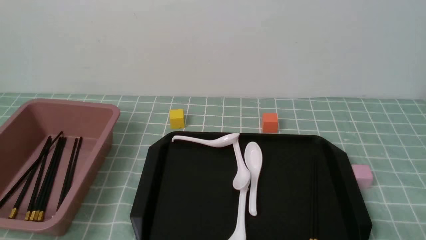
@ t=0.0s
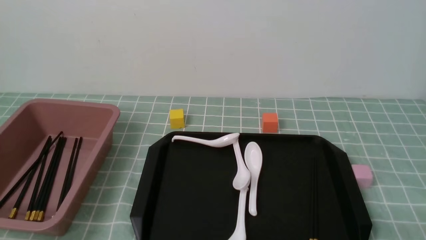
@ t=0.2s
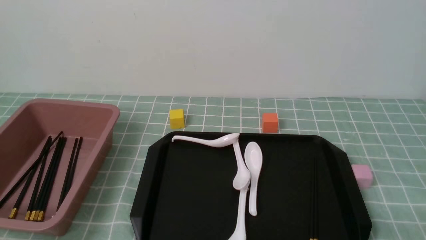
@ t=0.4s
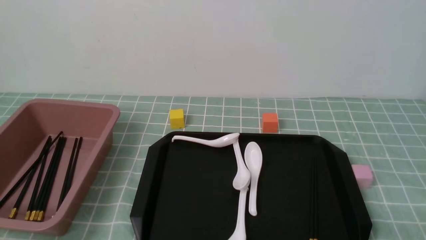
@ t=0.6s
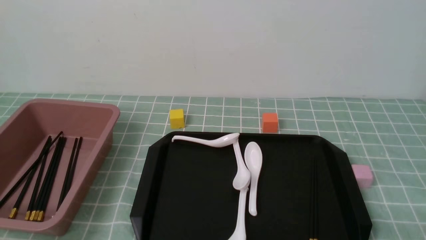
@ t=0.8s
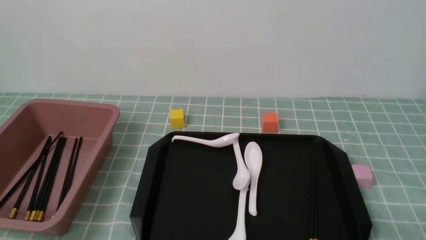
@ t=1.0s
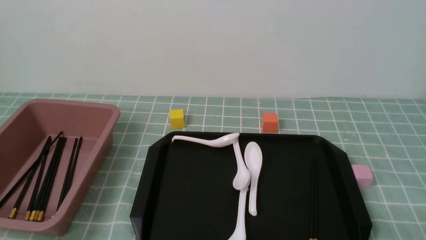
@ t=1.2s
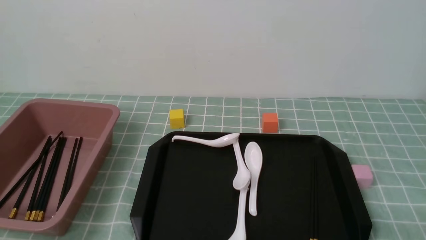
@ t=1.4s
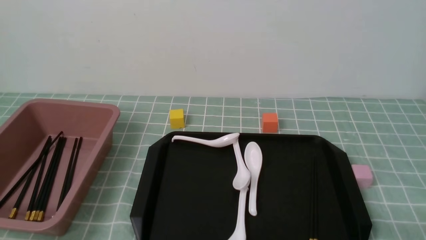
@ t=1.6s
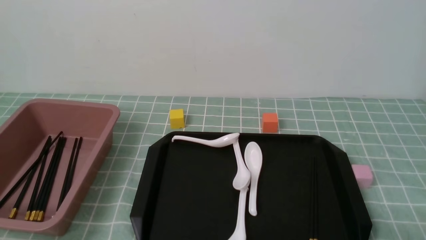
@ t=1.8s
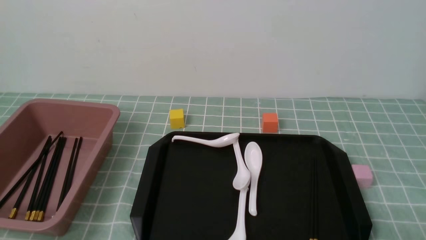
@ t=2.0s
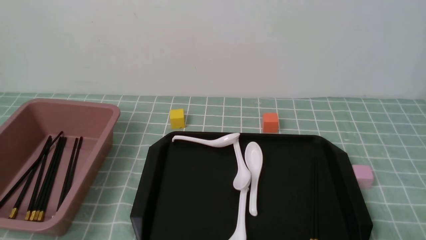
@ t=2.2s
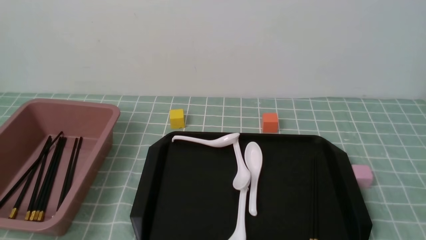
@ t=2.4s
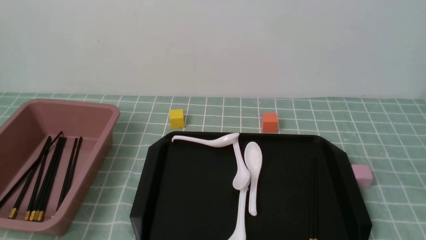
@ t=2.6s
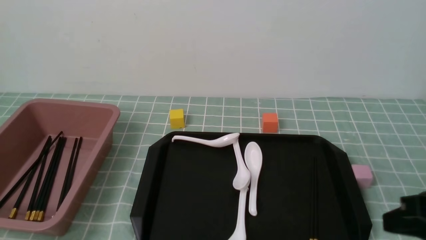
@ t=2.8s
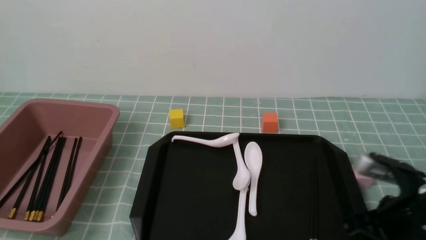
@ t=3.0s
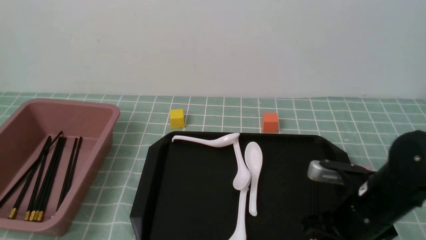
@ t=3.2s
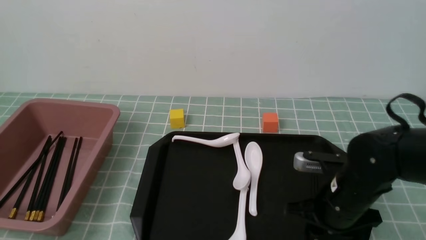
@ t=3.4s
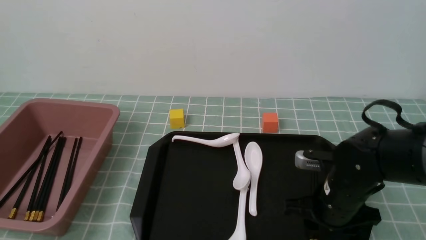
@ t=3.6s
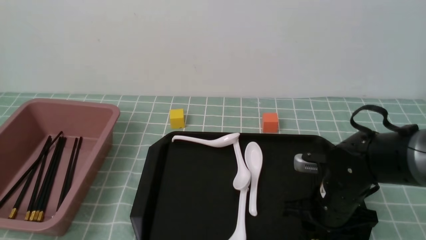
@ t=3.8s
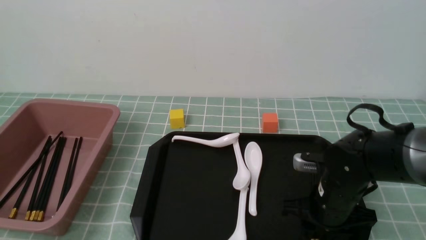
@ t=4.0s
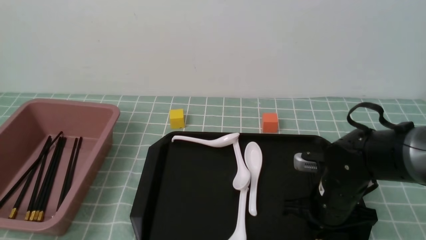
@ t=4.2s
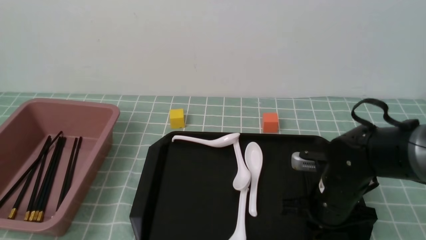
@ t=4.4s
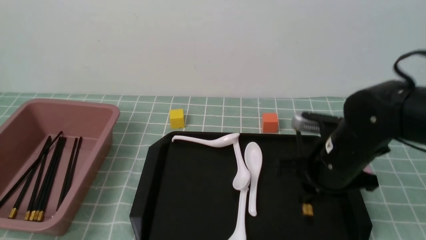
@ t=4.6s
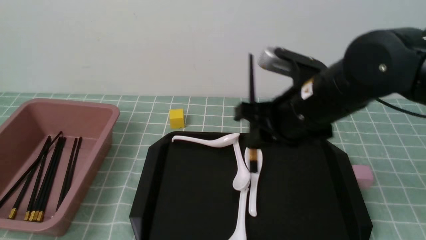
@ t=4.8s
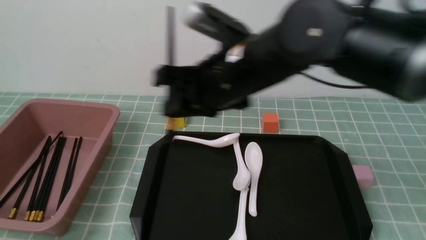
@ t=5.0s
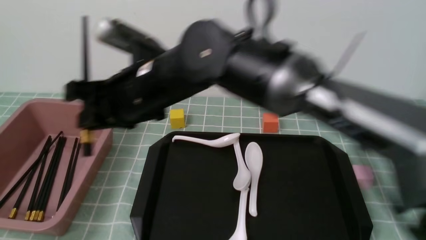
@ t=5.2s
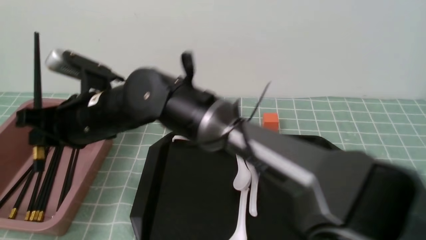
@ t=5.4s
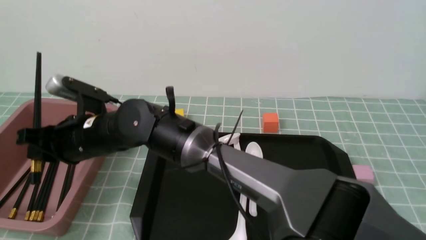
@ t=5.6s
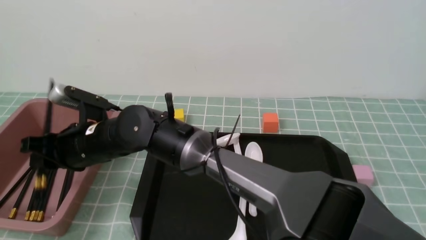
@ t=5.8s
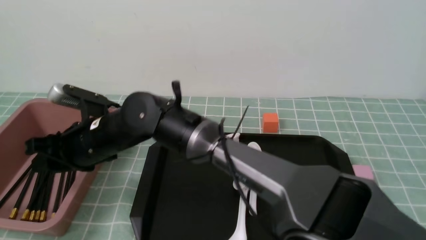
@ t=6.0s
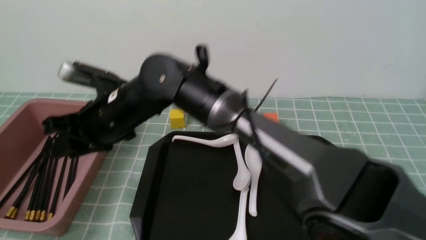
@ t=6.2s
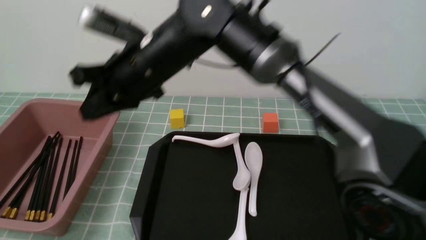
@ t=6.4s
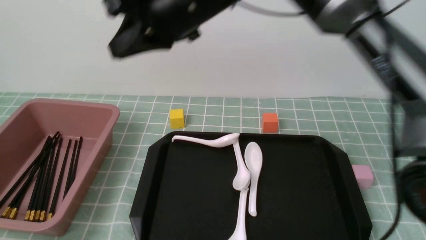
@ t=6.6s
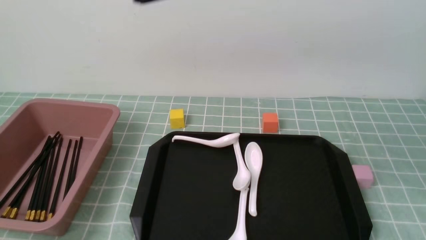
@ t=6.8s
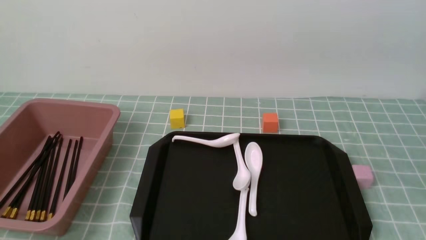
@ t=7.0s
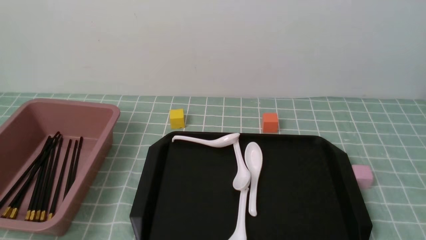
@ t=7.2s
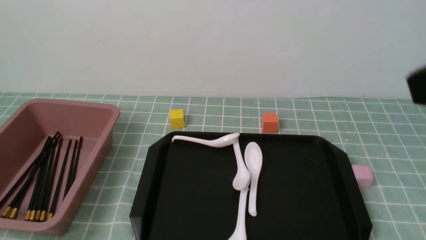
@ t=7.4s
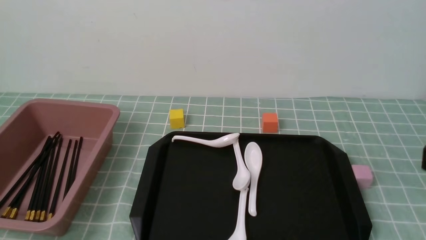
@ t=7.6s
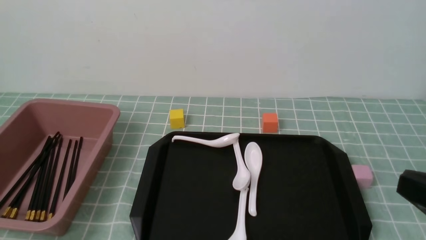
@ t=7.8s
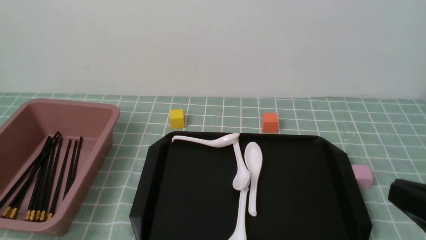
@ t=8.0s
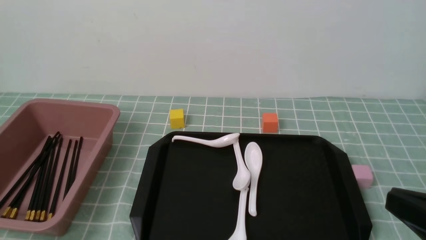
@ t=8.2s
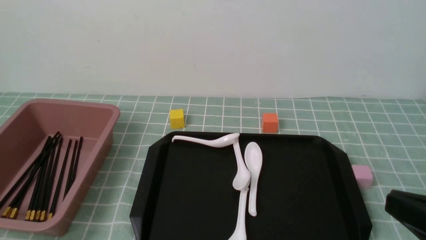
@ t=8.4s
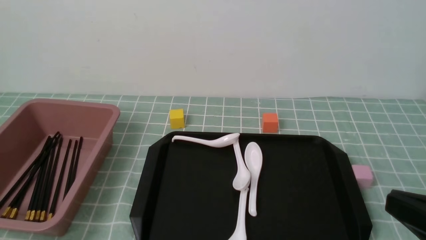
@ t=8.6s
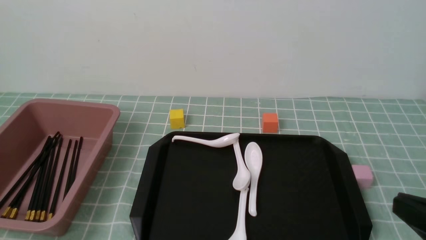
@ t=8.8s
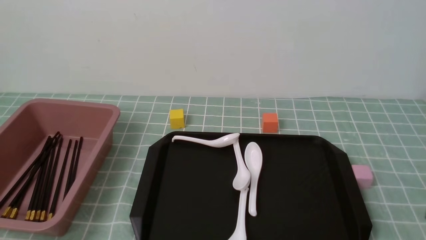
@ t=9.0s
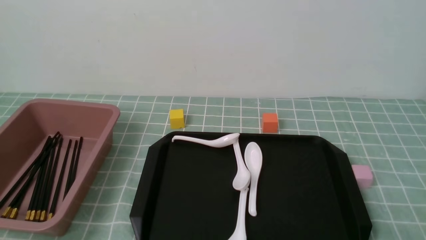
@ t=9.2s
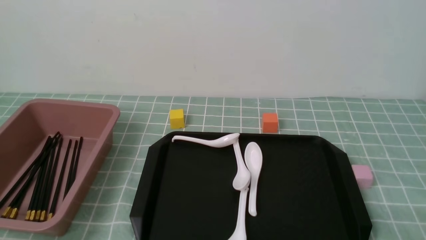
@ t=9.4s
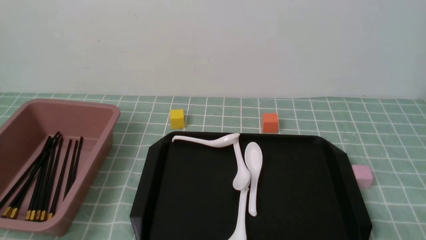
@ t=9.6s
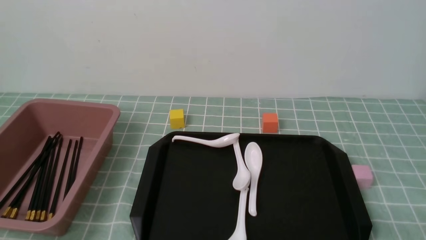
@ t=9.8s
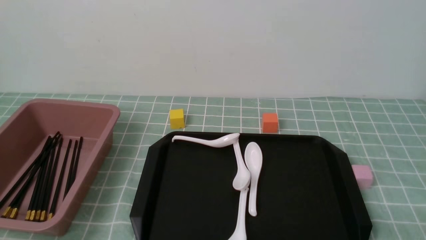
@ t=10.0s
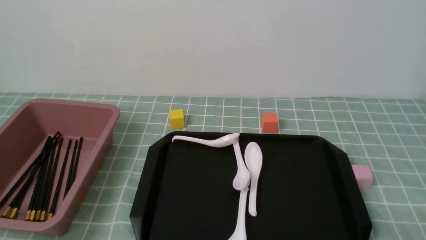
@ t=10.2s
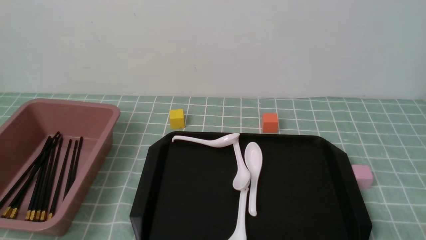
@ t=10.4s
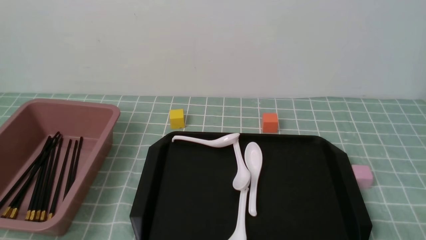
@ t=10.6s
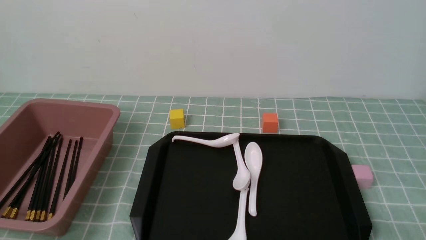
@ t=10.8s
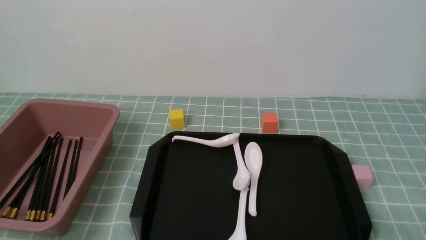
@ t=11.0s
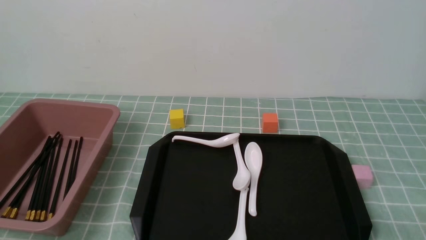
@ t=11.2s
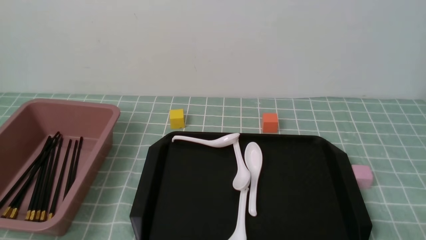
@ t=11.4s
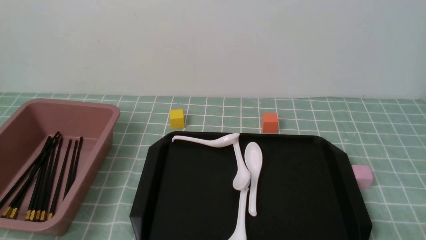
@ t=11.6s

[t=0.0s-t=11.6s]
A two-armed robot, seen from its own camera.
Step, t=0.0s to t=4.6s: use the right arm to grab a pair of chopsticks.
Step, t=4.8s to t=6.0s: use the right arm to put the chopsticks into the lunch box.
t=0.0s to t=1.4s: Both grippers stay put.
t=1.4s to t=2.8s: The right gripper heads forward and upward, covering roughly 15 cm, and closes up.
t=2.8s to t=4.4s: The right gripper travels forward, downward and to the left by some 20 cm, and opens up.
t=4.4s to t=5.8s: The right gripper travels to the left by about 35 cm.
t=5.8s to t=7.2s: The right gripper is displaced to the right, upward and backward by about 50 cm, and closes.
t=7.2s to t=8.8s: The right gripper travels downward and to the right by about 25 cm.
t=8.8s to t=10.2s: The right gripper is displaced downward by some 10 cm.
t=10.2s to t=11.6s: Both grippers stay put.

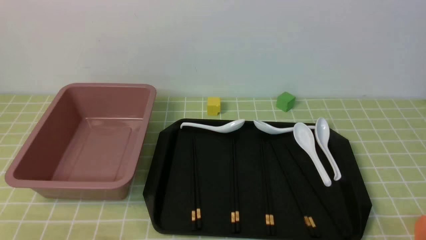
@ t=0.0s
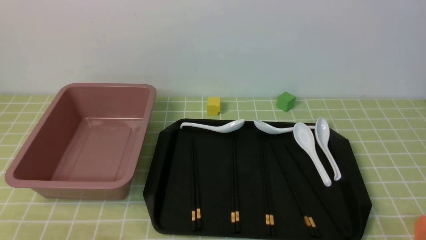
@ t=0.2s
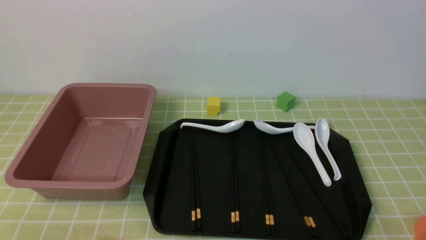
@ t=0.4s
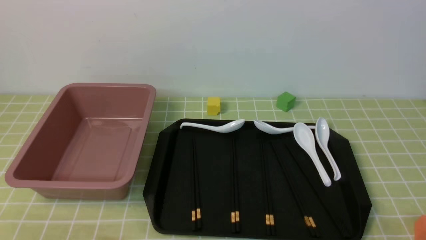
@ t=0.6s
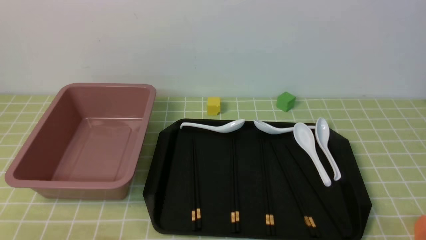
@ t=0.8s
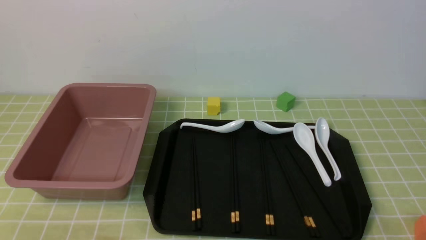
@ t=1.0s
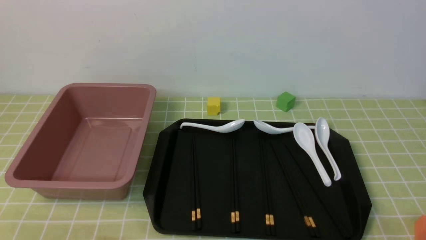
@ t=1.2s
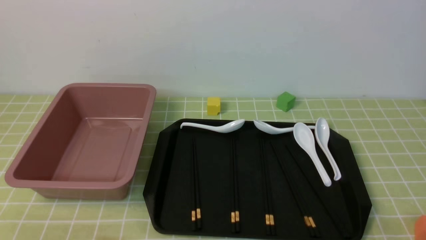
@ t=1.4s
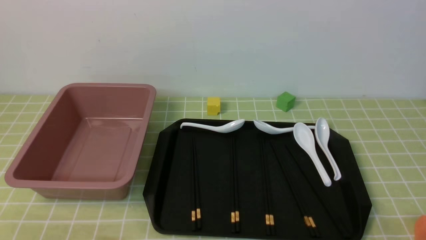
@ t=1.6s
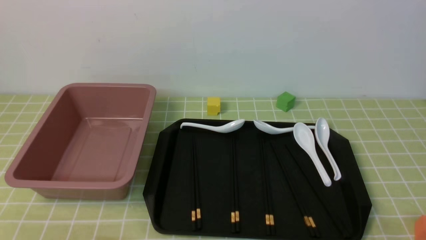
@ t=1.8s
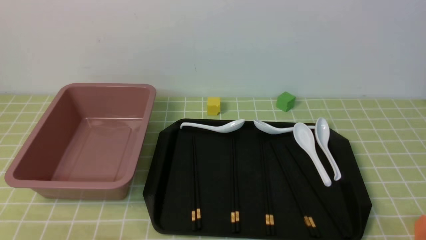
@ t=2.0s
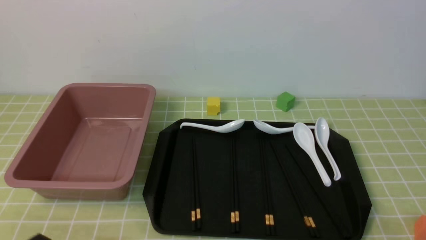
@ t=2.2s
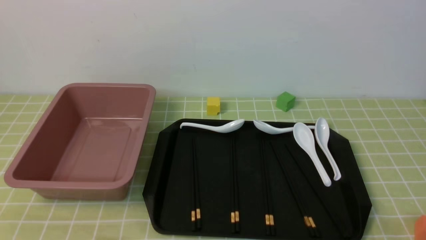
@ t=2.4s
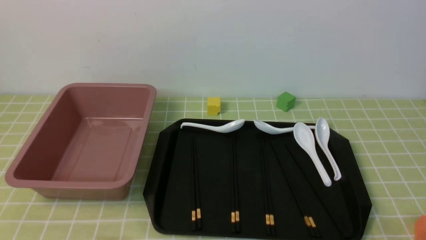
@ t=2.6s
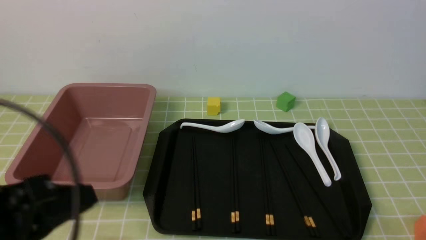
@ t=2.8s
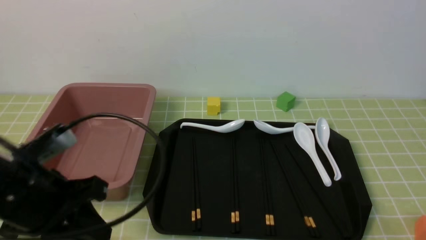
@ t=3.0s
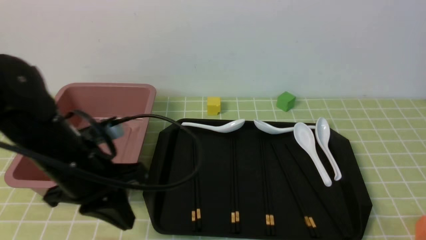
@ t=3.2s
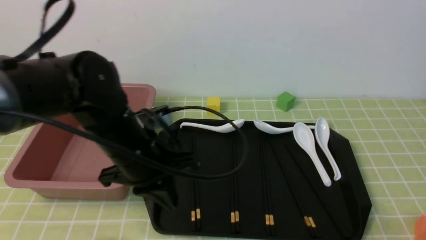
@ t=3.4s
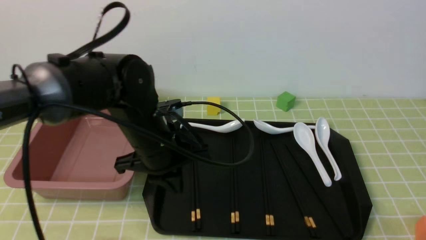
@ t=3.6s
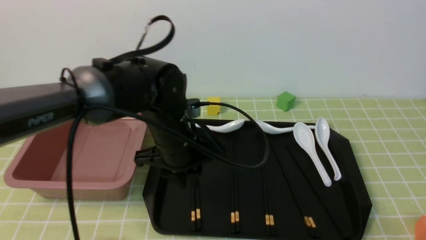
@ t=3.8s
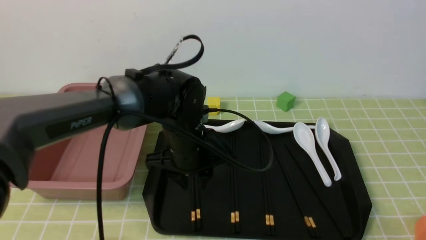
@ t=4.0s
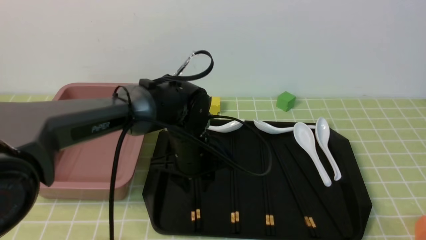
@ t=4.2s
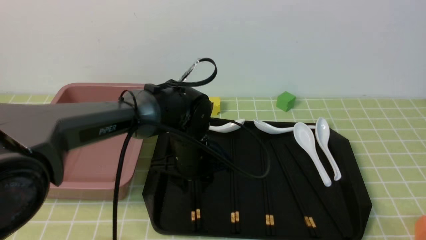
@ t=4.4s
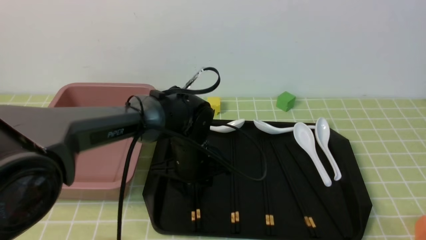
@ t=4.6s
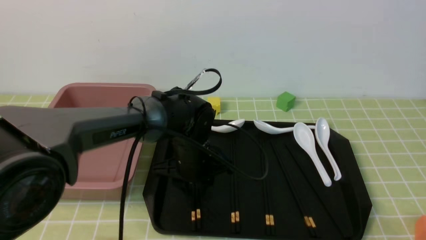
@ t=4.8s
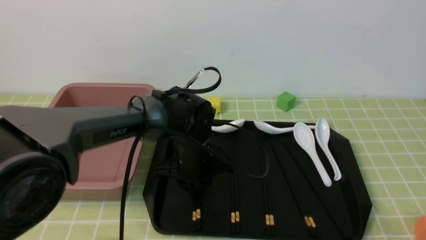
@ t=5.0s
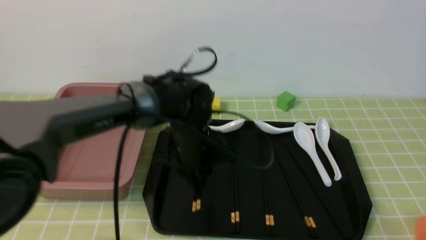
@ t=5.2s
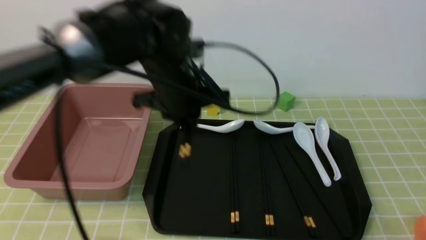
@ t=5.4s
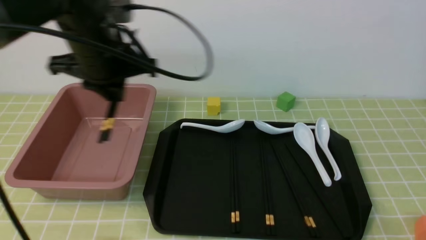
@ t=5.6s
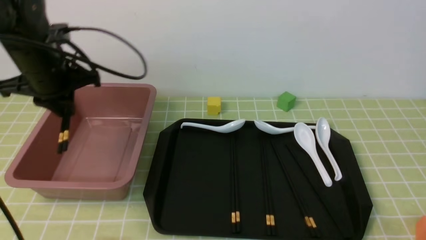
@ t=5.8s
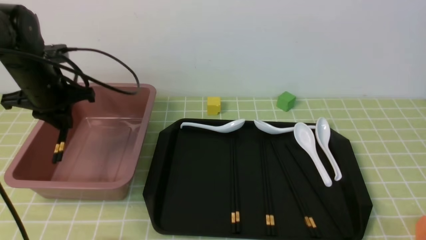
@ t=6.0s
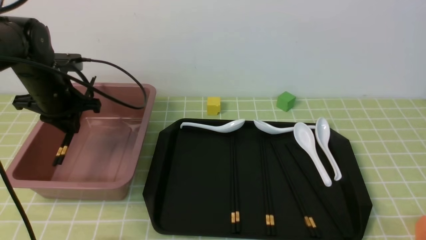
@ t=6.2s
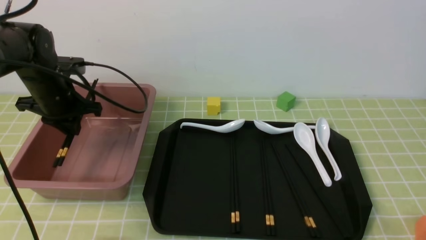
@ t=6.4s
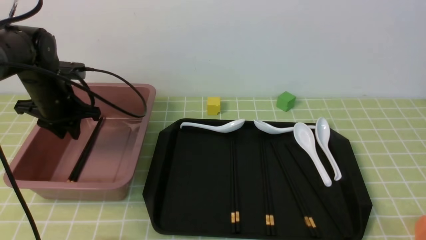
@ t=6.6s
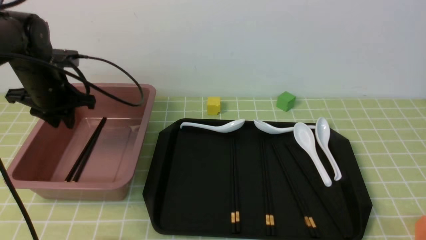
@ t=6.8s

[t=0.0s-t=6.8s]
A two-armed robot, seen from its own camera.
Step, t=0.0s to t=5.2s: use the left arm to grab a pair of chopsticks.
Step, t=5.4s to t=6.8s: use the left arm to put the chopsticks into the lunch box.
t=0.0s to t=1.4s: Both grippers stay about where they are.
t=1.4s to t=2.8s: The left gripper moves upward and forward, about 15 cm, and closes its fingers.
t=2.8s to t=4.0s: The left gripper is displaced forward, to the right and downward by roughly 30 cm, and opens.
t=4.0s to t=5.4s: The left gripper goes some 10 cm upward, and closes.
t=5.4s to t=6.8s: The left gripper shifts roughly 20 cm to the left.
